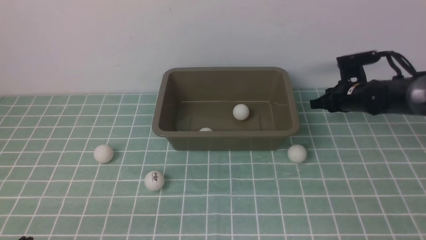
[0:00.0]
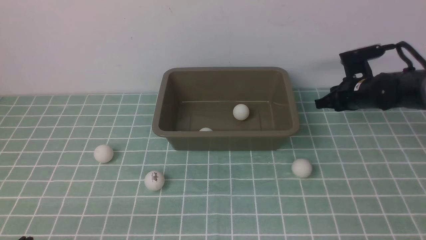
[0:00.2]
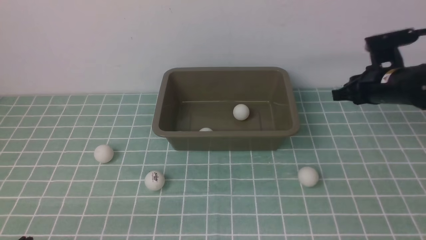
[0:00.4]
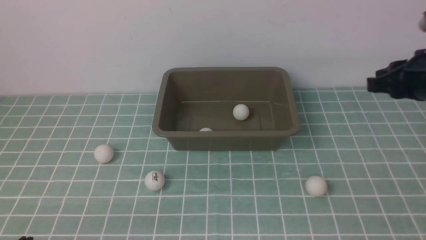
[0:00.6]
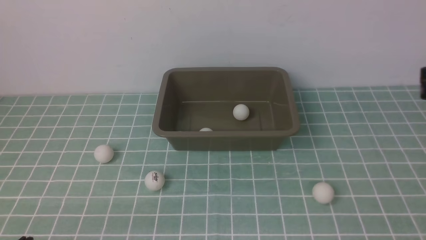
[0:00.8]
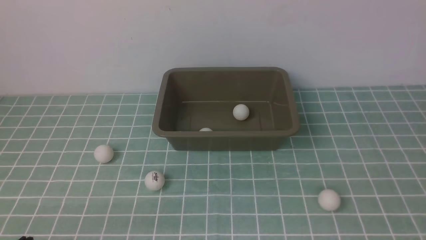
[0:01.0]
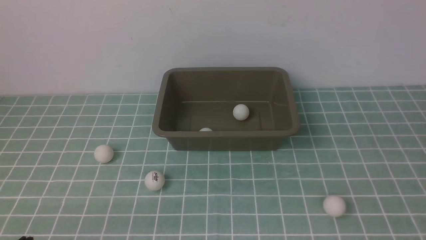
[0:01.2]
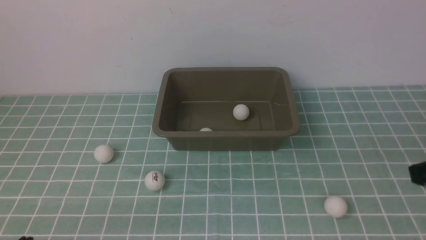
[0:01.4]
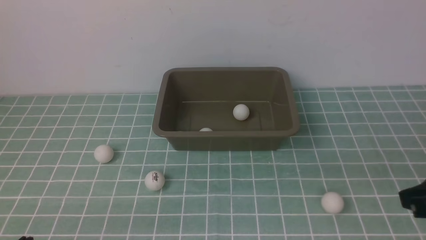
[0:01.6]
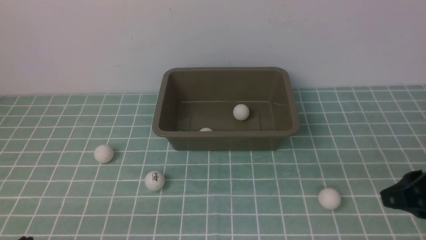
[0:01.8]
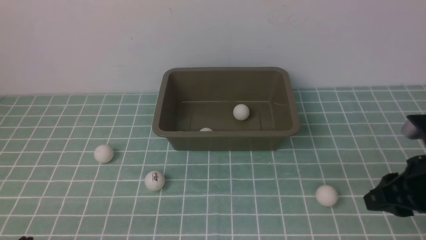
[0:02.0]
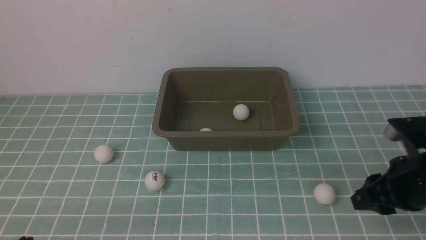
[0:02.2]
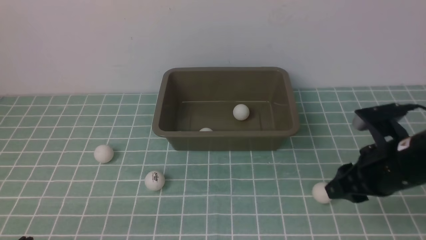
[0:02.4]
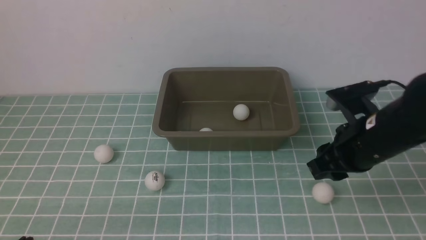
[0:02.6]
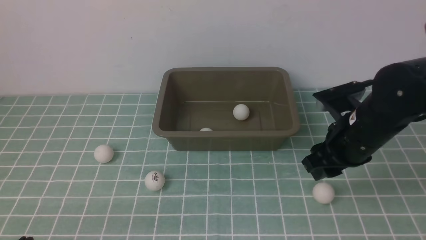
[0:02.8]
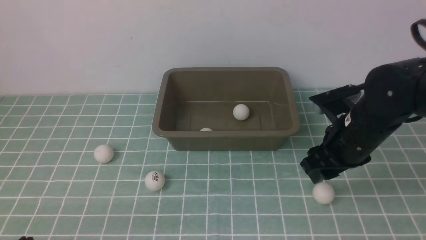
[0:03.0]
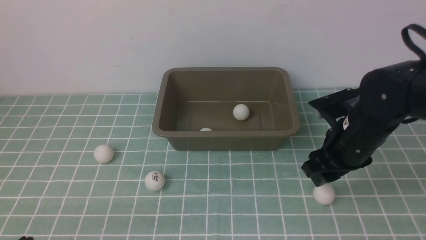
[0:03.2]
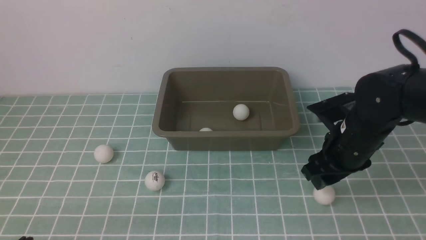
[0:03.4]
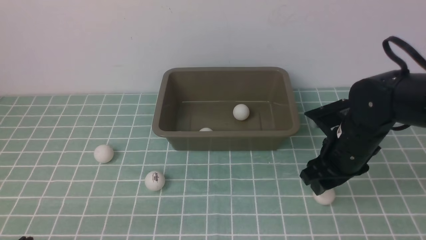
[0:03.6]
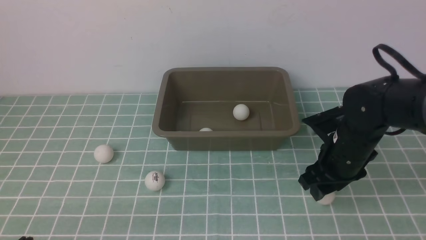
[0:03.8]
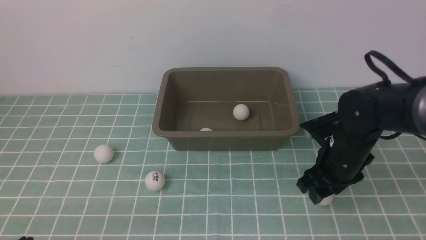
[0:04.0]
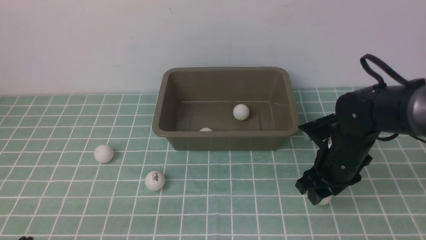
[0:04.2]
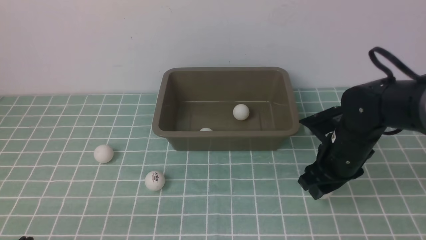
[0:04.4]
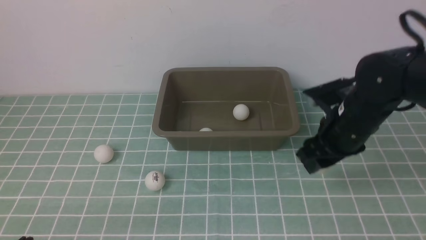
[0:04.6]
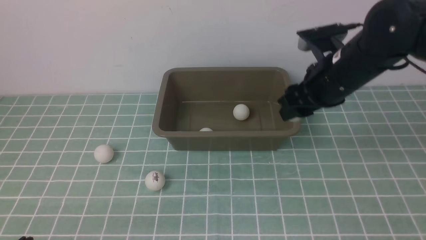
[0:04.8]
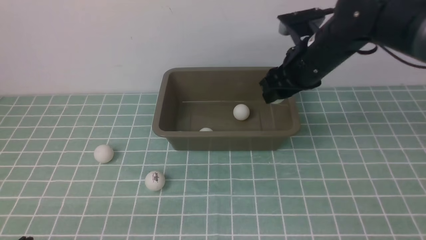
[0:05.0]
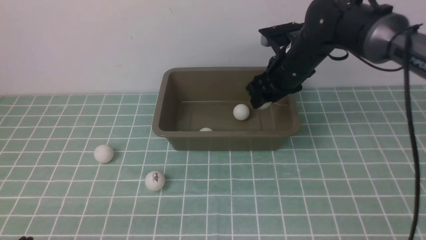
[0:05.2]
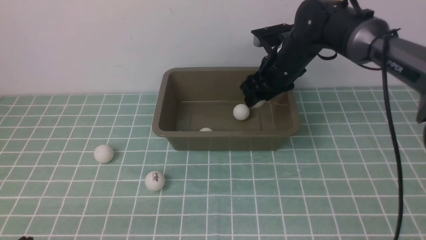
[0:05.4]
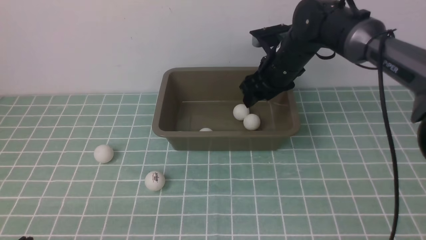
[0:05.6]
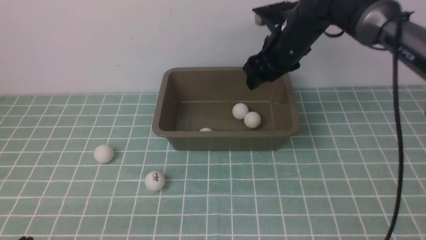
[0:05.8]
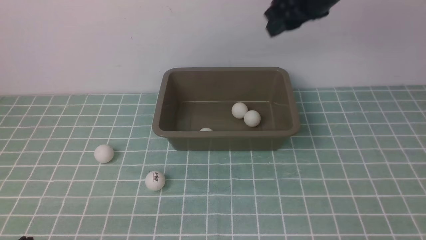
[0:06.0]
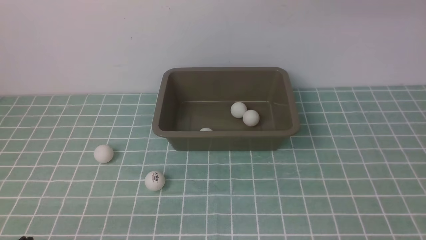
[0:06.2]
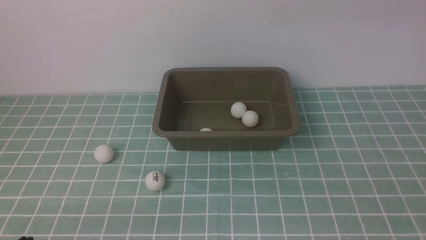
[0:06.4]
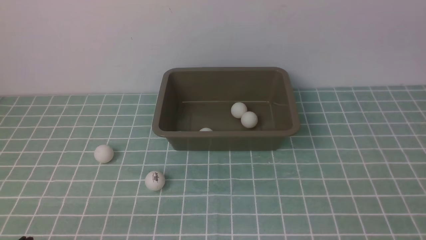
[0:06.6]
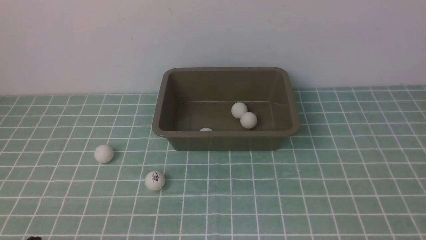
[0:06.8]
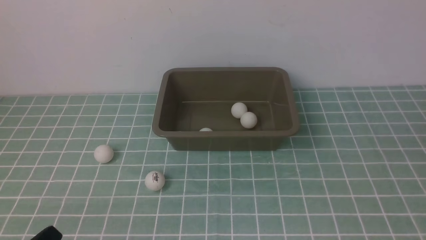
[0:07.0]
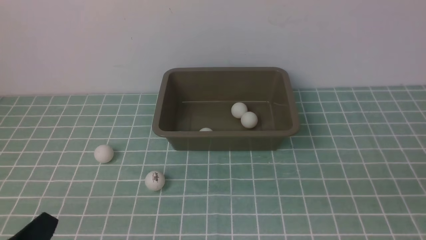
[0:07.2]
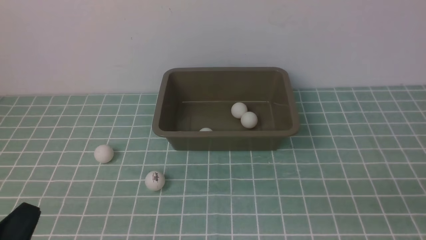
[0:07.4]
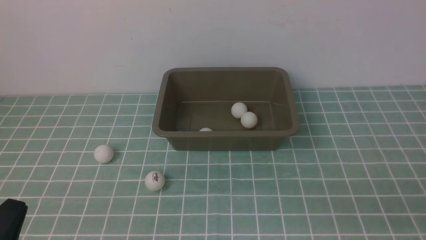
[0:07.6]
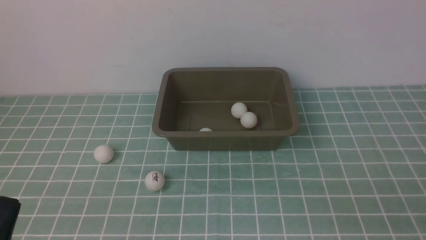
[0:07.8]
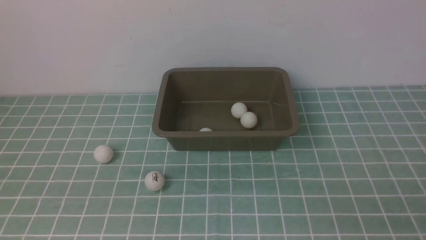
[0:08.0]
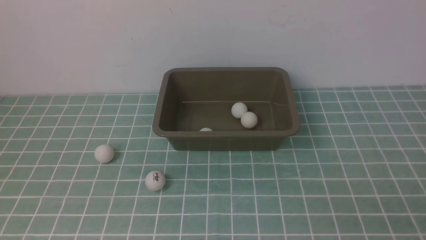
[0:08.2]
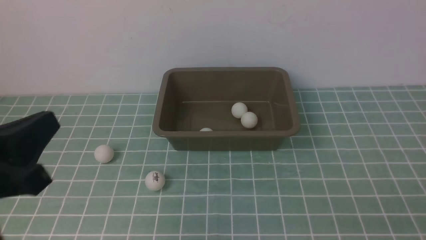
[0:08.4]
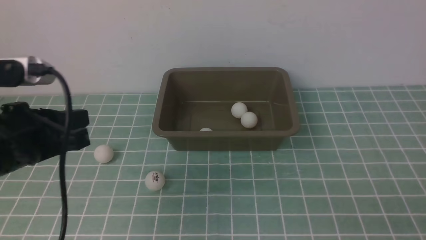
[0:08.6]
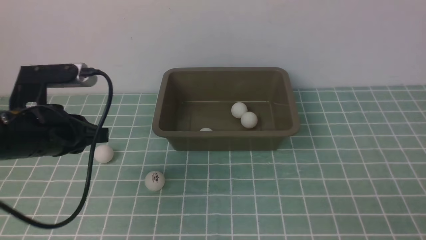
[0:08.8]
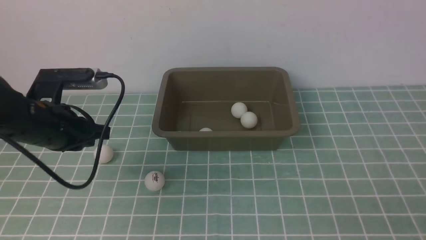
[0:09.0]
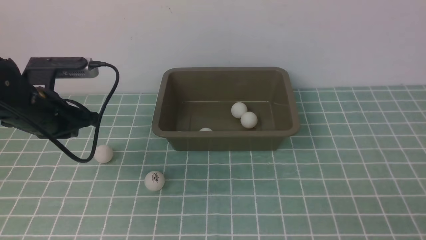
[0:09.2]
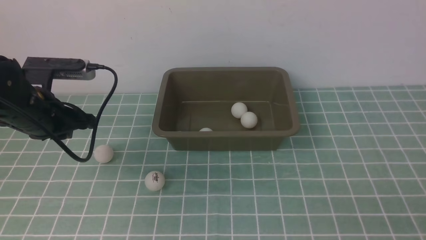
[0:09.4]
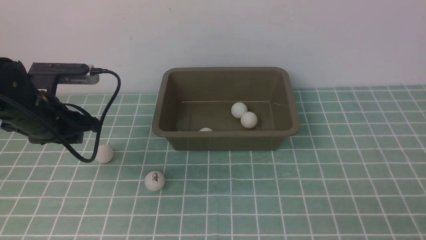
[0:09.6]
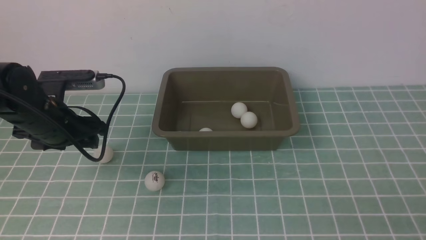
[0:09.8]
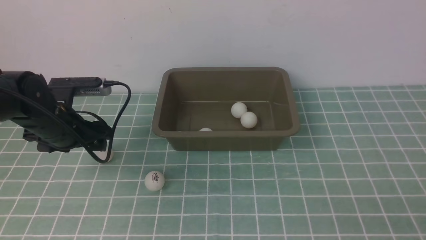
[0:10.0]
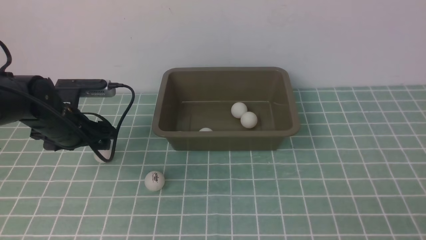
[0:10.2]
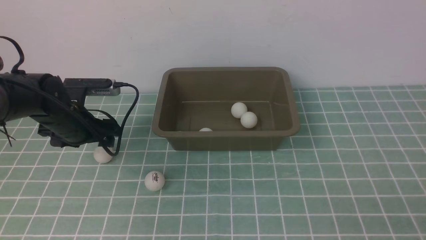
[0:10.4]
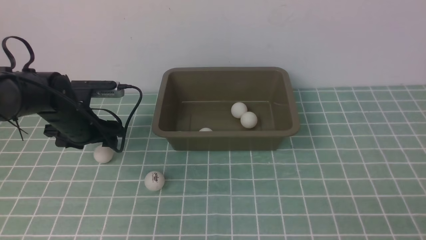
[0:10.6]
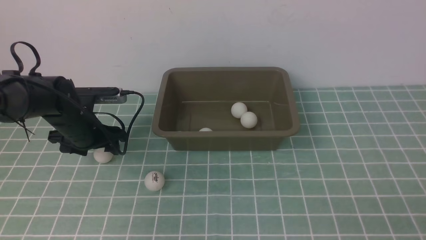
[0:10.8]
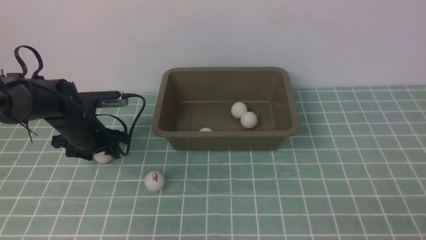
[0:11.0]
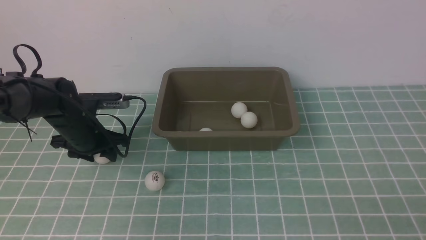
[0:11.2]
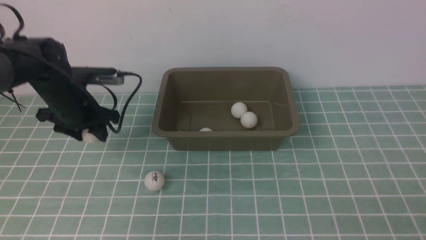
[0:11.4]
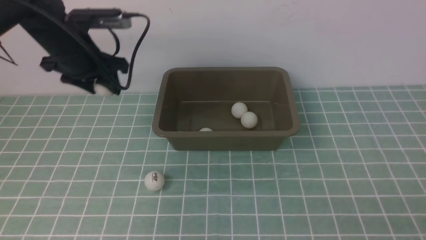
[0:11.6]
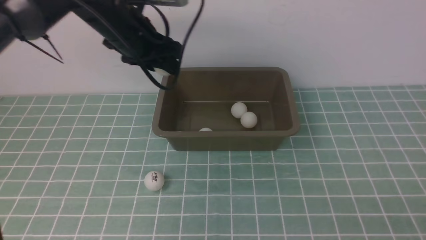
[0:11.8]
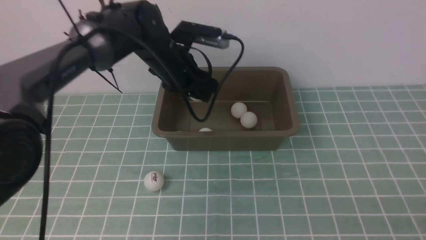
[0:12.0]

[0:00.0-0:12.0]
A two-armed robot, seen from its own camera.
Step, 0:00.0 to 0:04.6: use the right arm to clamp the table tennis ball closest to it.
Step, 0:04.8 to 0:05.6: use the right arm to put the table tennis ball into the box.
Step, 0:05.8 to 0:11.4: use the left arm to clamp the table tennis ball closest to it.
0:00.0 to 0:01.6: The right gripper heads backward and upward, covering about 35 cm.
0:01.6 to 0:03.0: The right gripper is displaced forward, to the left and downward by some 20 cm, and opens up.
0:03.0 to 0:04.4: The right gripper changes place by roughly 5 cm.
0:04.4 to 0:06.0: The right gripper heads upward, covering approximately 25 cm.
0:06.0 to 0:07.6: The left gripper is displaced upward by some 10 cm; the right gripper shifts roughly 35 cm backward and downward, and closes its fingers.
0:07.6 to 0:09.0: The left gripper shifts some 25 cm forward.
0:09.0 to 0:10.4: The left gripper heads downward and forward, covering about 15 cm, and opens up.
0:10.4 to 0:12.0: The left gripper shifts about 20 cm to the right and upward.

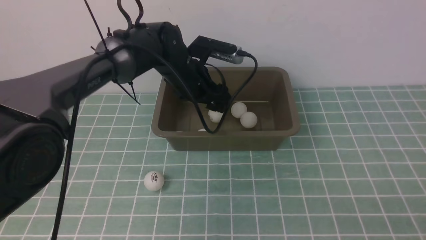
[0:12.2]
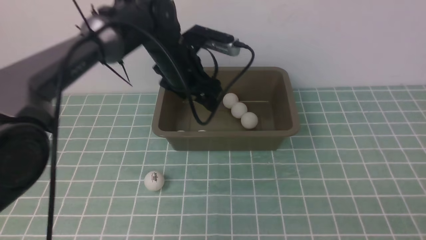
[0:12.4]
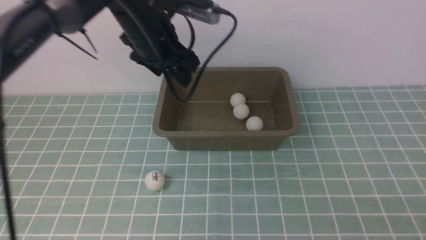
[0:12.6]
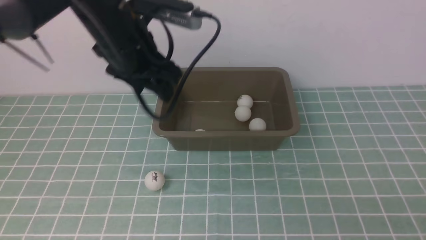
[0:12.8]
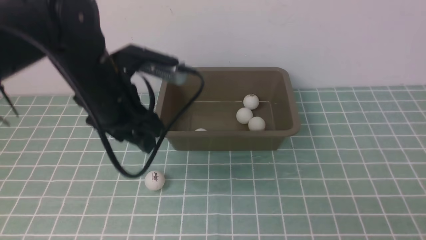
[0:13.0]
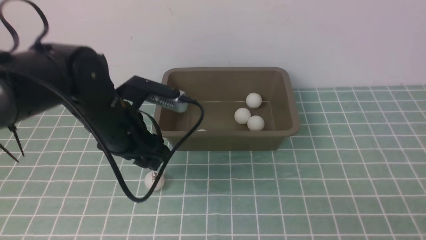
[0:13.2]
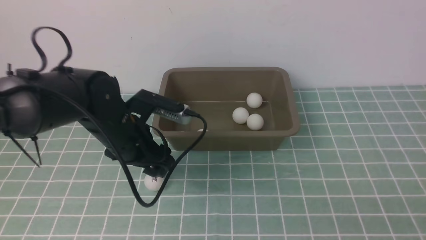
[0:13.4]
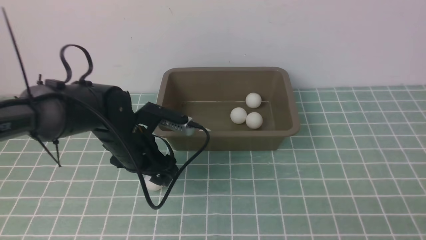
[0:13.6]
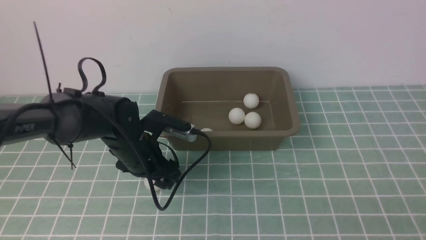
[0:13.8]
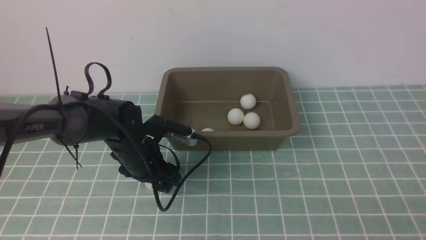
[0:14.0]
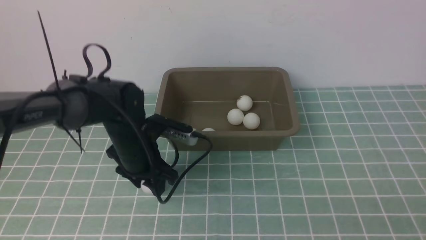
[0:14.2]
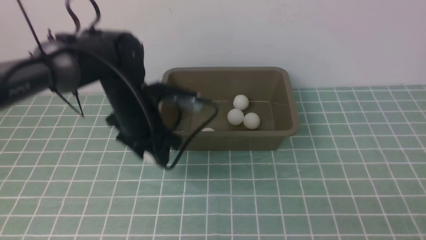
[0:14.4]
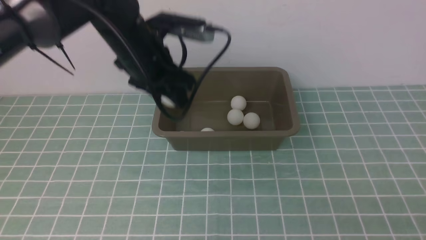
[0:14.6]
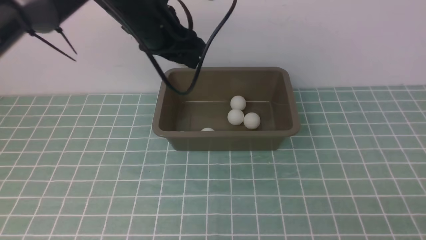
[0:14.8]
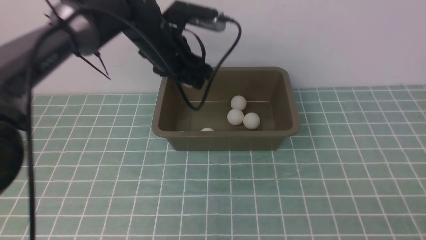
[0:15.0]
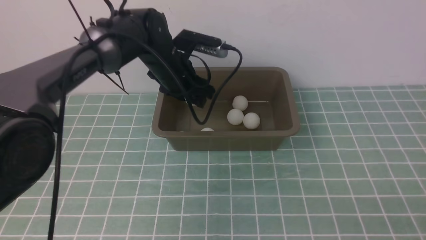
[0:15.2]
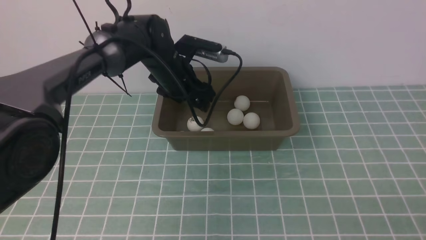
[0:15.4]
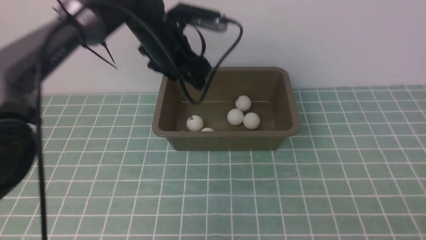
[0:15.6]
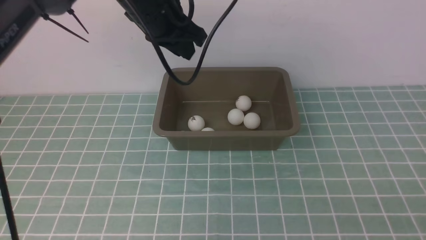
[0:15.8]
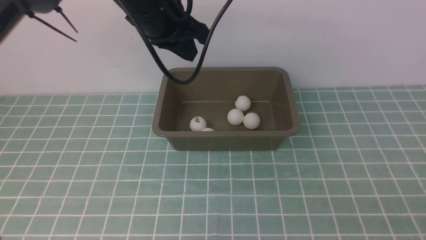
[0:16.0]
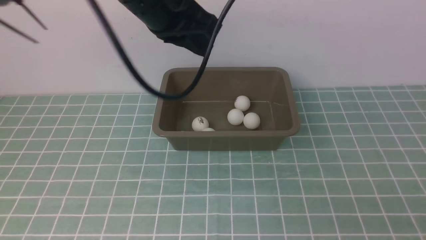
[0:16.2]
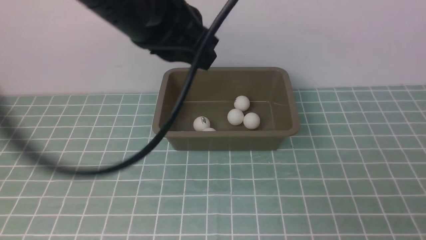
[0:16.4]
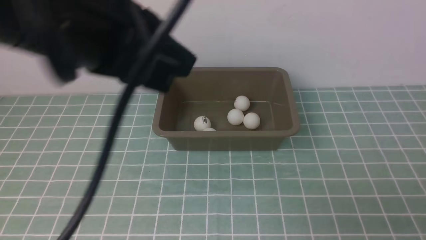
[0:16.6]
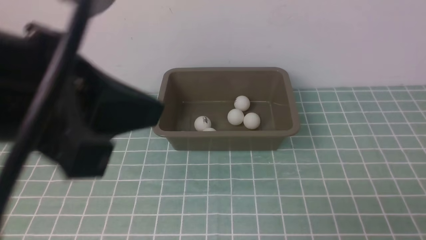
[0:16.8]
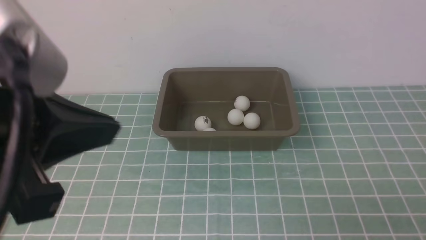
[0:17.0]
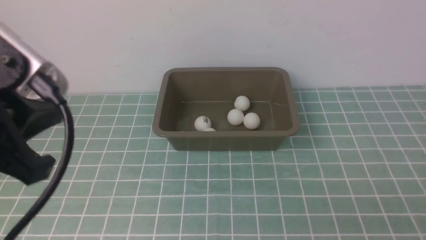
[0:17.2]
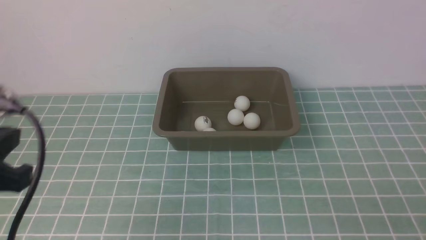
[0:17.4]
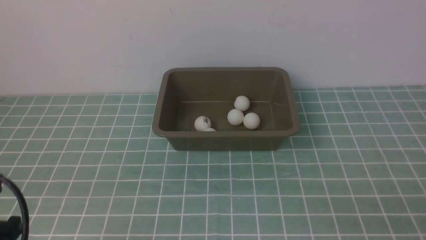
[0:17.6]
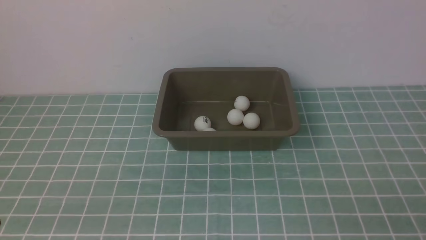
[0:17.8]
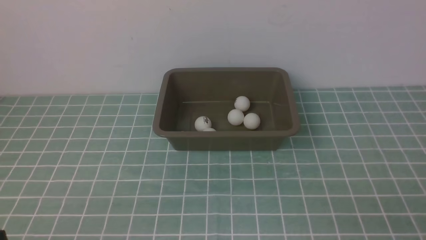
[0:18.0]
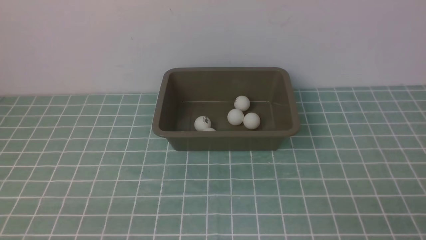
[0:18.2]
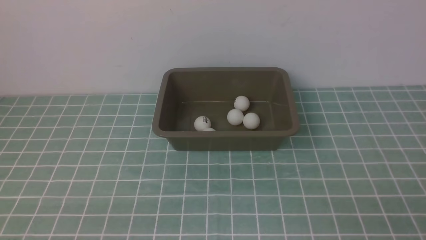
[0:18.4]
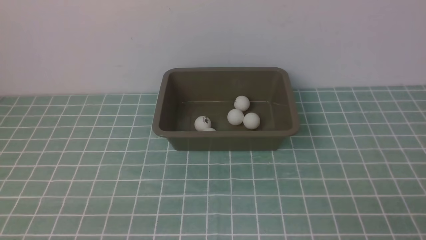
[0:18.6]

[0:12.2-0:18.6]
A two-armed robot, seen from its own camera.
Step, 0:12.6 to 0:14.2: use the left arm to clamp the table tennis ball closest to it.
Step, 0:14.6 to 0:15.6: use the left arm to put the table tennis ball into the box.
0:12.2 to 0:13.8: The left gripper moves downward, backward and to the left, about 15 cm.
0:13.8 to 0:15.4: The left gripper shifts roughly 15 cm forward and upward.
0:15.4 to 0:17.0: The left gripper is displaced backward and upward by roughly 35 cm, and closes up.
0:17.0 to 0:18.6: The left gripper is displaced downward by some 25 cm.
